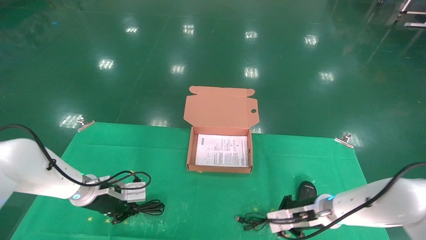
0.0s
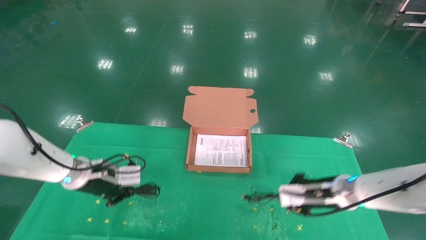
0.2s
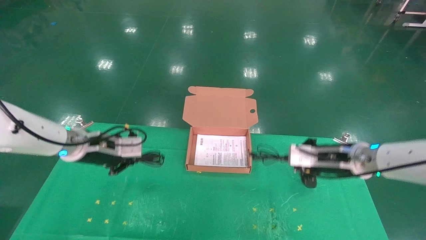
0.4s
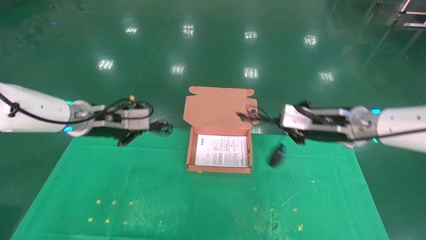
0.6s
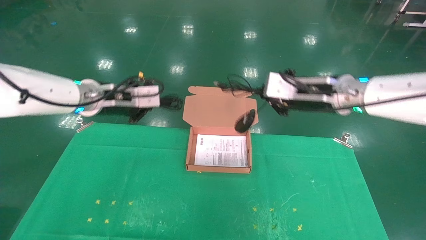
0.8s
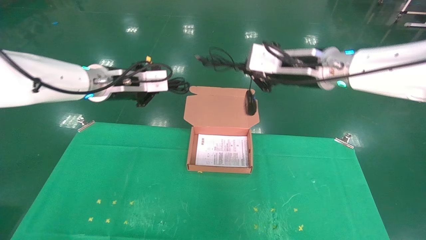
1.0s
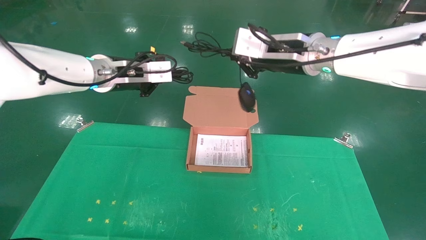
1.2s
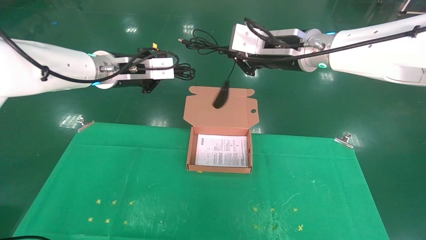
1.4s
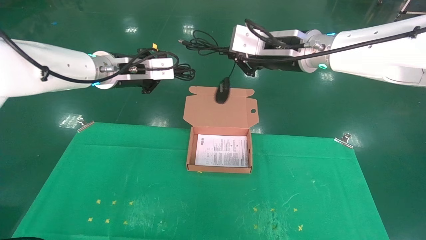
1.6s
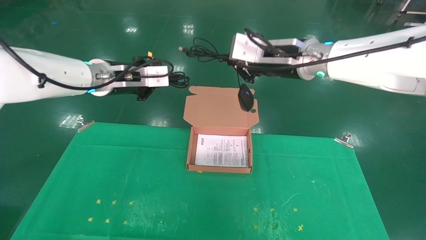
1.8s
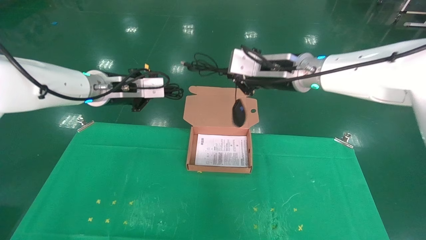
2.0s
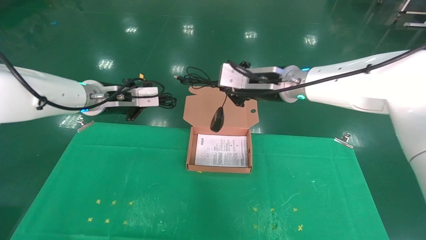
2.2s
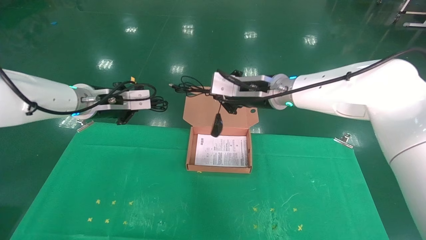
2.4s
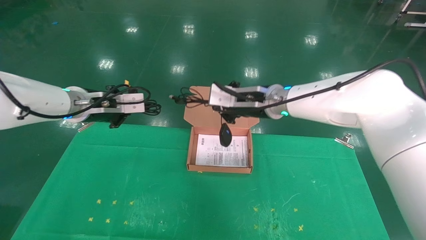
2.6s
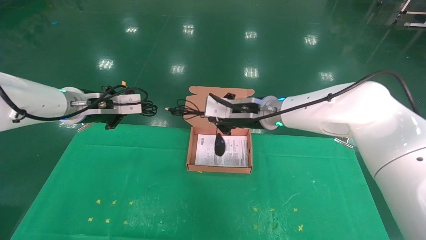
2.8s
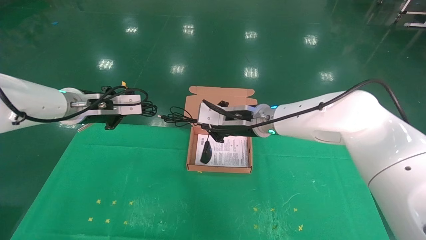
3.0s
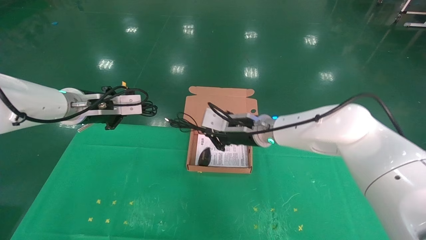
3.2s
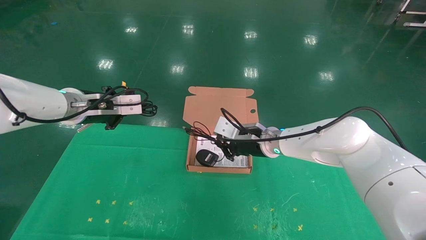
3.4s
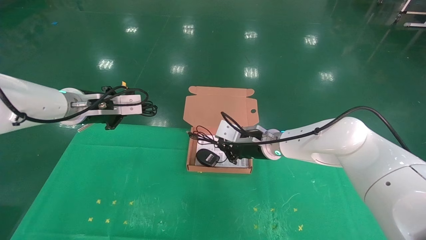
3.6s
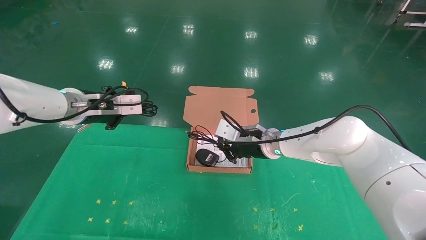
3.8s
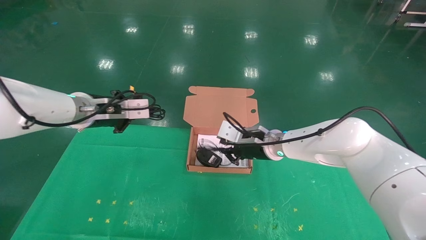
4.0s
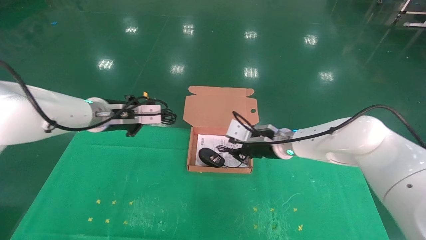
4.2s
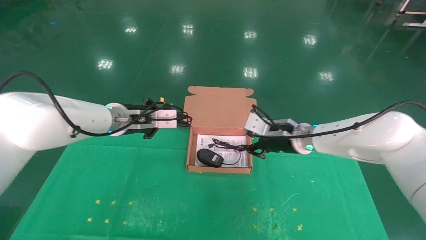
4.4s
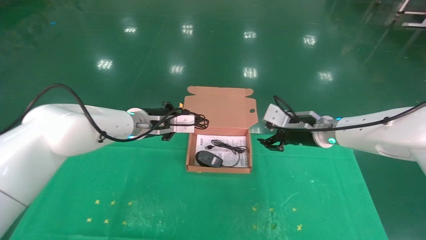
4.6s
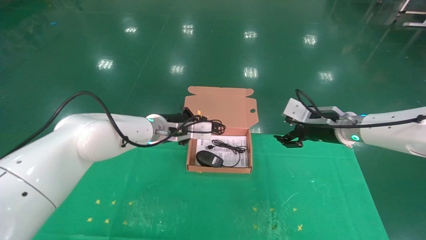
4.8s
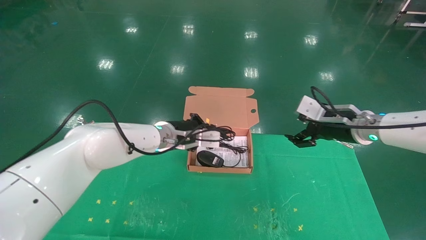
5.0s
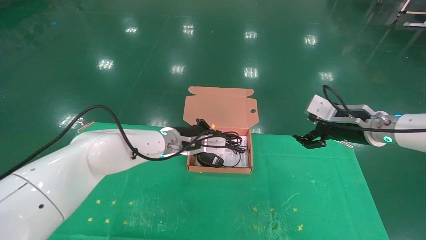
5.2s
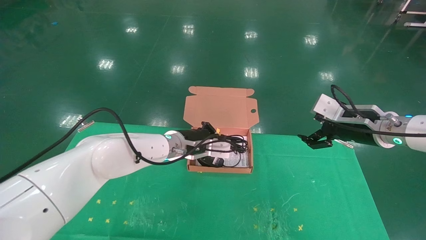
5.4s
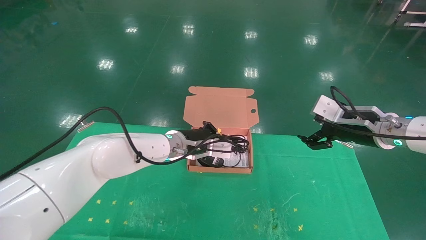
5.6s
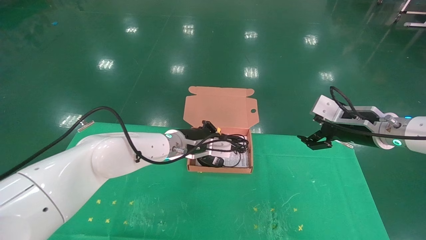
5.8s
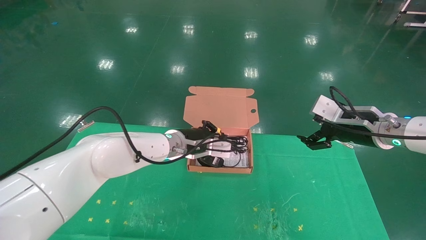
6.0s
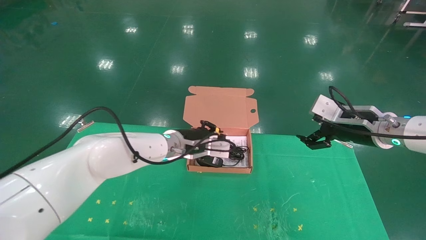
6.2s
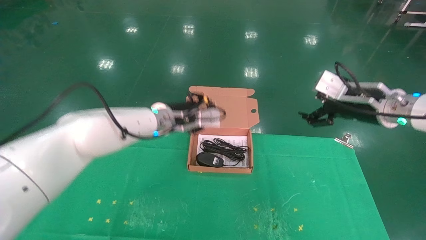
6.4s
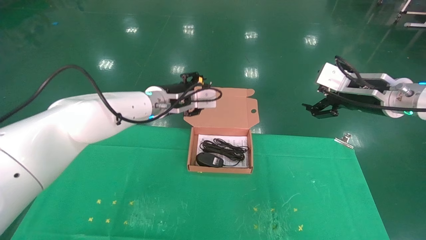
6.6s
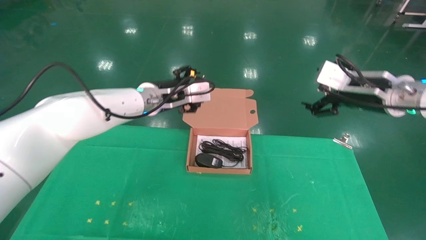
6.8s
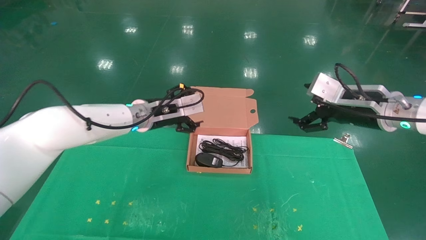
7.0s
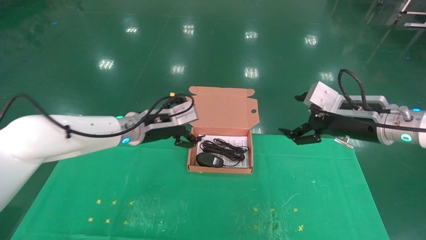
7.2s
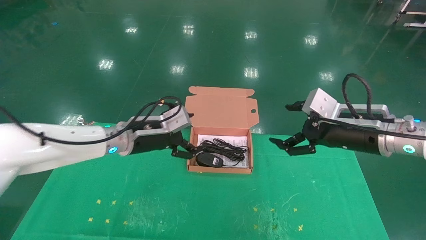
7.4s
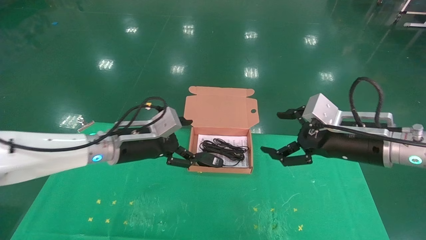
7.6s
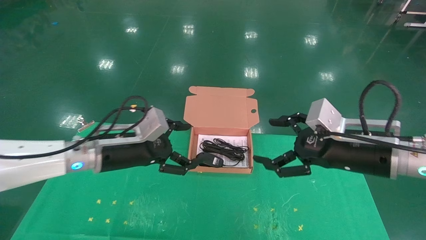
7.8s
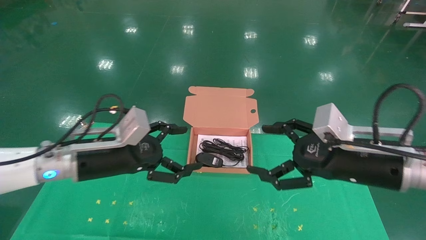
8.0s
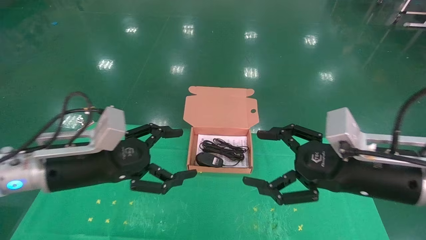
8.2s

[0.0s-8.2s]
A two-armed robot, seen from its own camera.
Task of the whole recording: grasp data cable left put into box grasp mouse right put into box.
Step, 0.2s to 6.0s: Place the mouse and power cord into the box.
0.0s to 1.6s: The two grippers go approximately 30 cm upward.
1.6s to 3.2s: The right gripper goes approximately 15 cm downward. The left gripper moves downward and to the left, about 10 cm.
3.2s to 5.0s: The left gripper goes roughly 20 cm to the right and downward. The right gripper heads to the right, covering approximately 20 cm, and opens its fingers.
5.0s to 6.6s: The two grippers go approximately 5 cm upward. The left gripper opens its fingers.
6.6s to 8.2s: The right gripper travels backward, downward and to the left by some 15 cm. Meanwhile the left gripper is displaced backward and to the left by approximately 25 cm, and opens.
